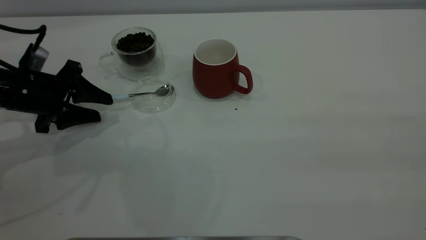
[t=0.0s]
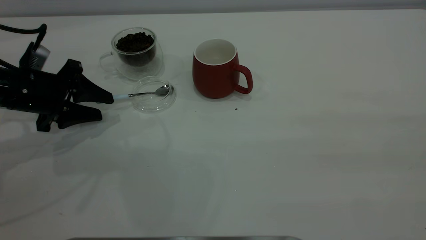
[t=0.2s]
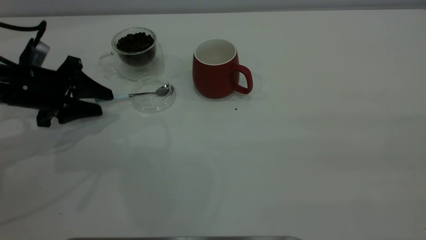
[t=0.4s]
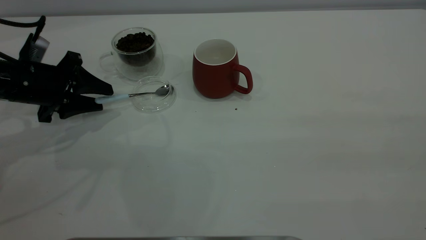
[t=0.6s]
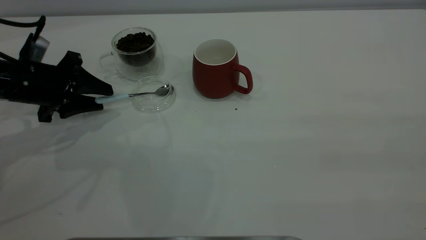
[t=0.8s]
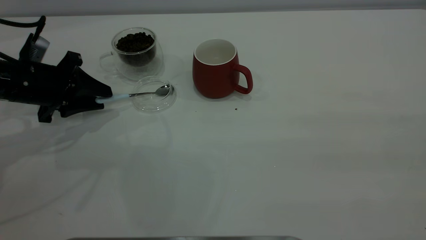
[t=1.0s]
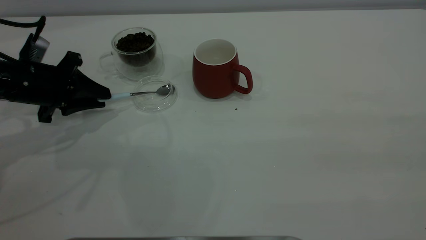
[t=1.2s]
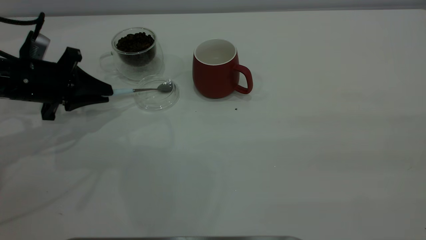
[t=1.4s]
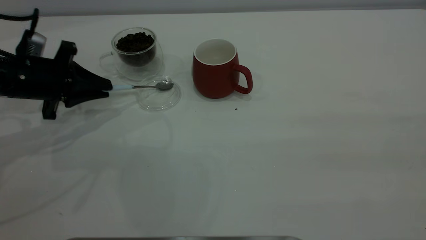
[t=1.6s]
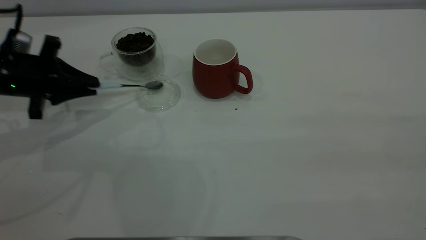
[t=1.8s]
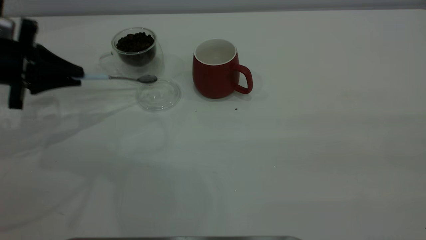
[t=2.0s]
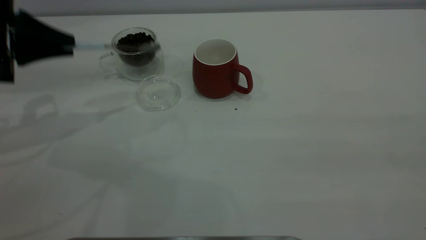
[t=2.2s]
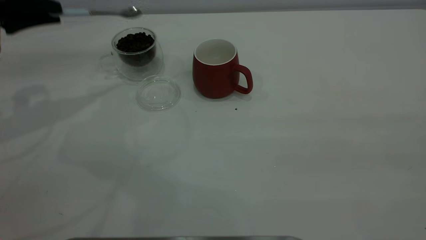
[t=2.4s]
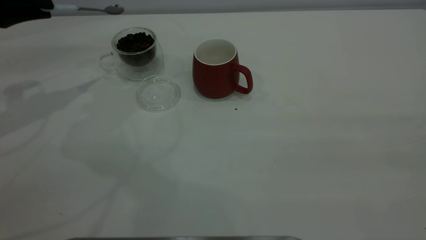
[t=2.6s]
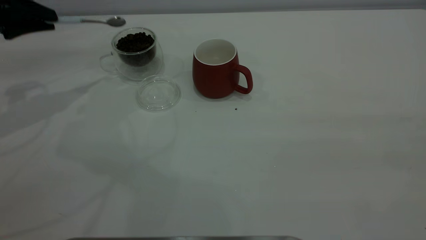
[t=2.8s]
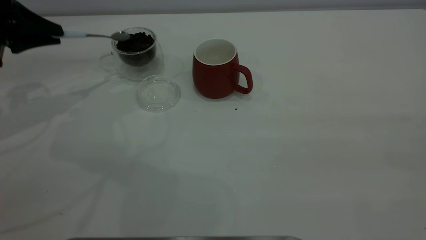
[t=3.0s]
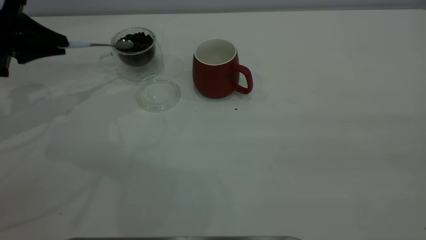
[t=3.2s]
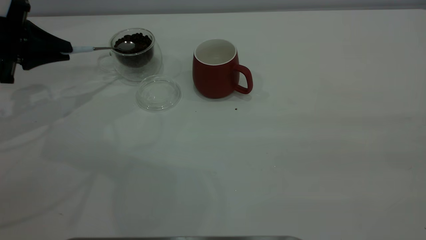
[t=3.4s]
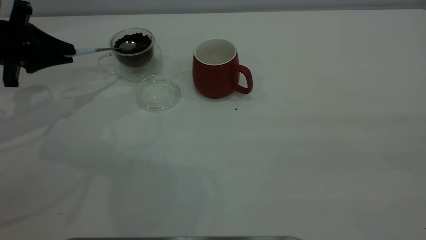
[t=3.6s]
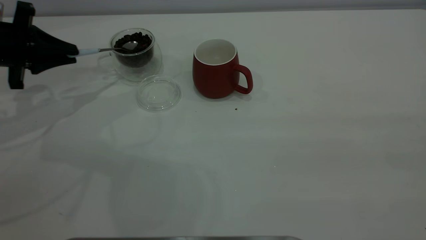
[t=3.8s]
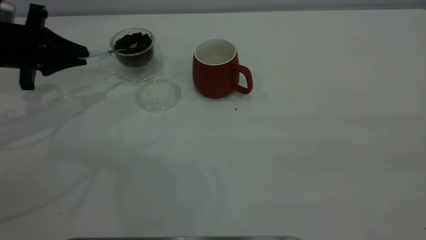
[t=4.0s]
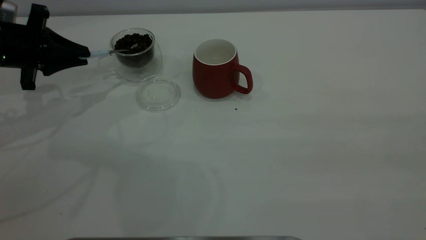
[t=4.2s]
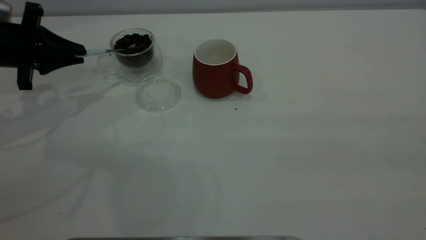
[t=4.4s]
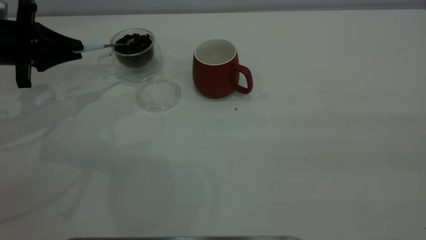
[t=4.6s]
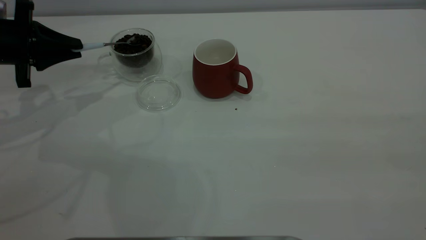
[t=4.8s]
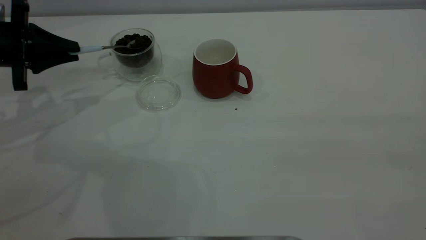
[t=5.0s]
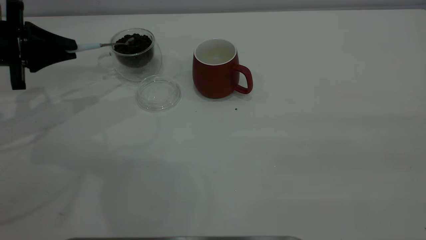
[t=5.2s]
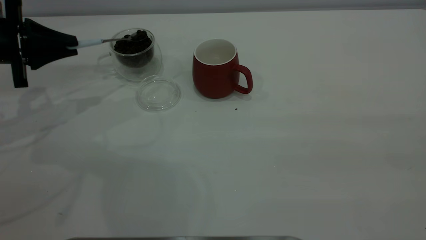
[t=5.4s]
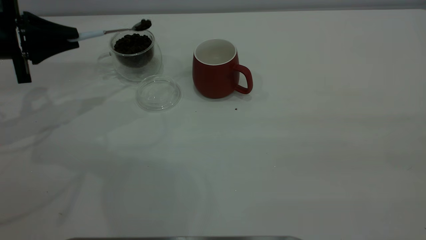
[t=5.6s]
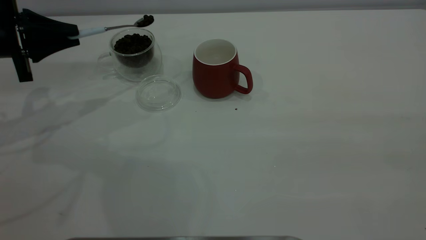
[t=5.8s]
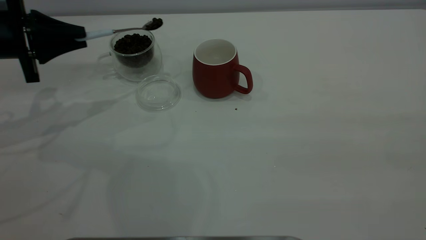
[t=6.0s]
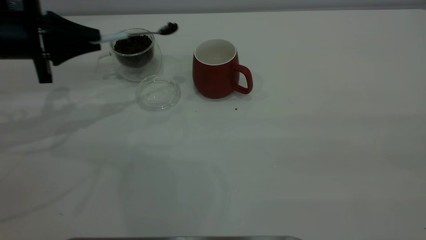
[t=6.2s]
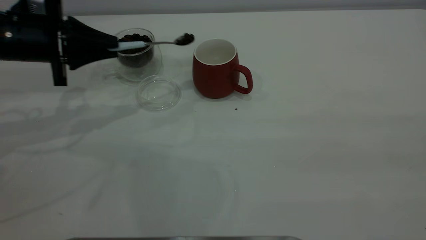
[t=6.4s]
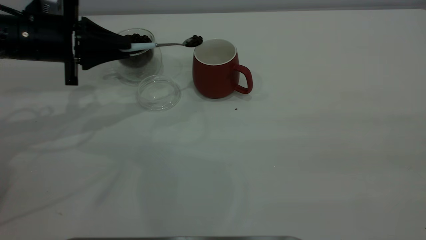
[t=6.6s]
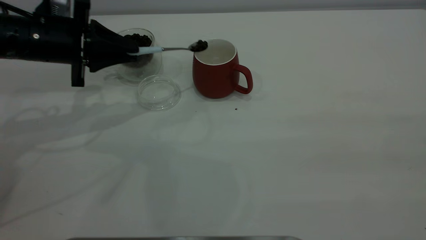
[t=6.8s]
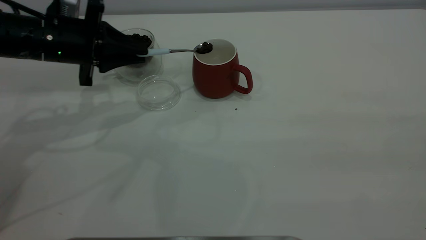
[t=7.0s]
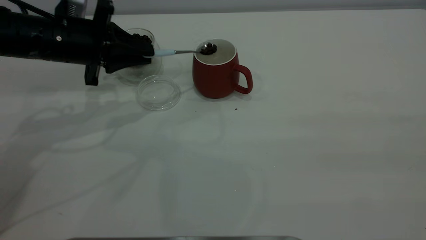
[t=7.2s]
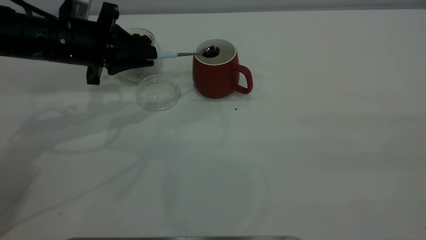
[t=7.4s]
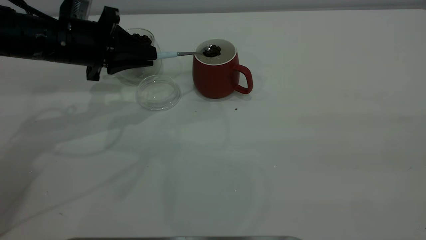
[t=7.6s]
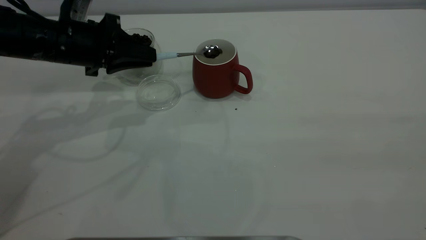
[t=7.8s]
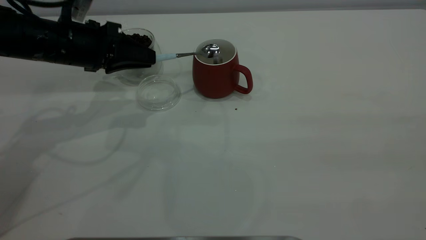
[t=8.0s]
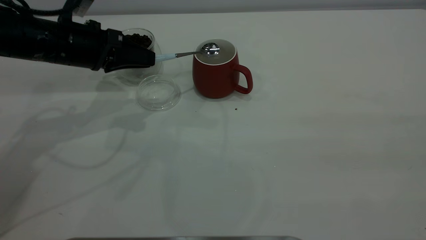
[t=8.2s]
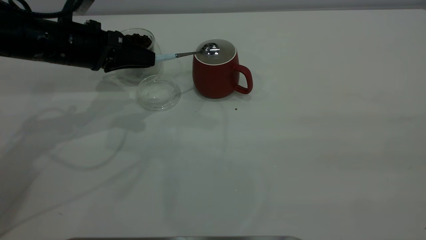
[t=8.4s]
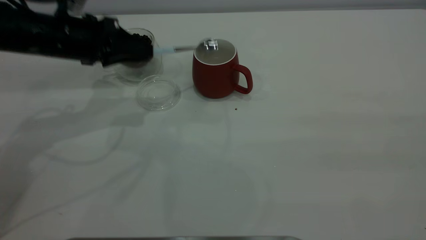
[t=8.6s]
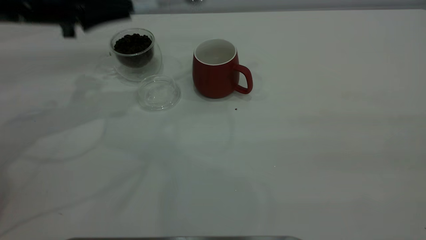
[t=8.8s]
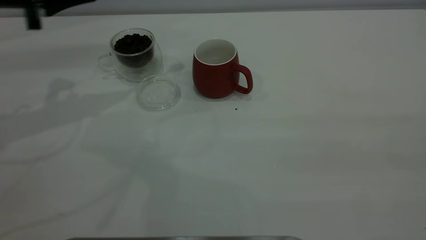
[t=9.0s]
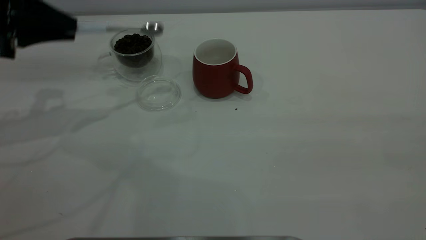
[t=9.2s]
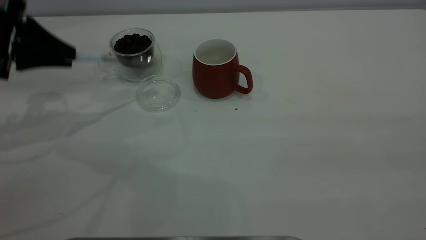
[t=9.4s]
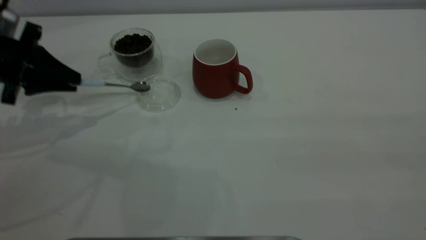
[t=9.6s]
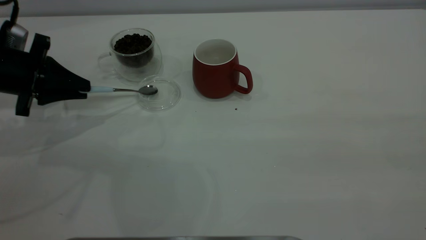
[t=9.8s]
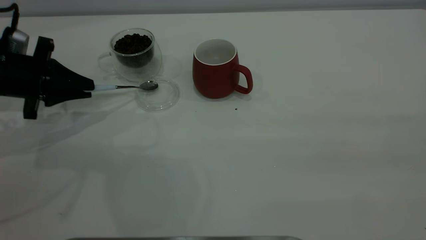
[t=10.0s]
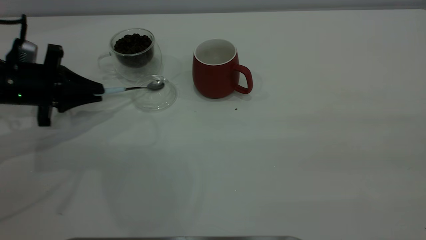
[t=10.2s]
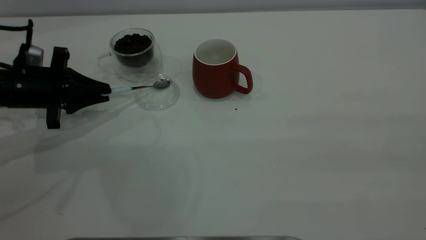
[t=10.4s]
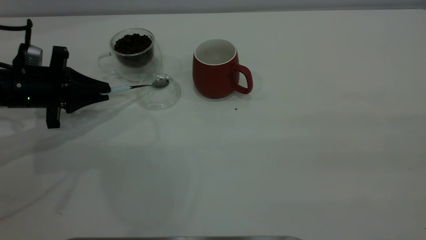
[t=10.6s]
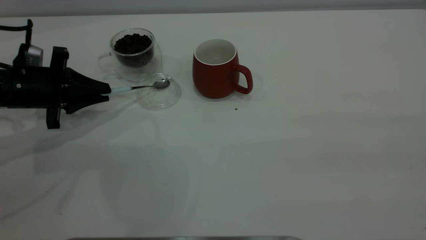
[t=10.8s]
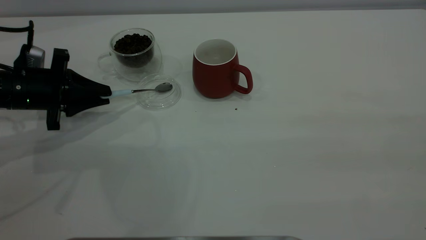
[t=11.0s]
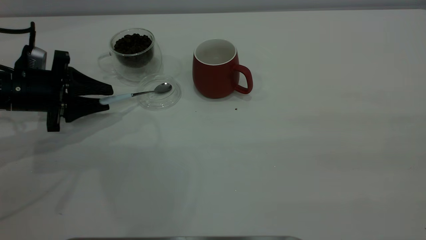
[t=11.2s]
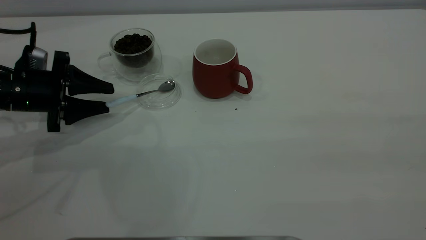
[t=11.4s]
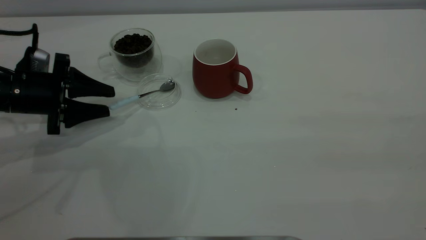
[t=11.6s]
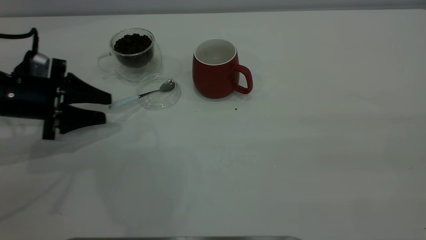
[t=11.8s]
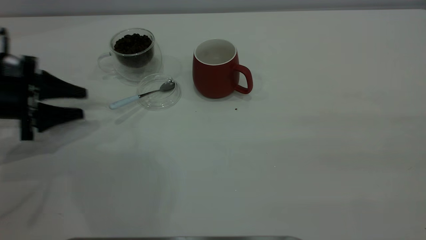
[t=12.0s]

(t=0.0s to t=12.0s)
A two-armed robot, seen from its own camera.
Task of the whole recording: the right gripper place the red cup in the center of the table, the left gripper take the blue spoon from the cup lid and scoop out the coffee beans from the coffee cup and put them into the red cup, the left gripper put the spoon back into the cup lid.
Step, t=0.0s - t=2.0s: Pick up the spoon.
Step, t=2.2s - t=8.6s: Scoop a spoonful of beans into the cup.
Step, t=8.8s - t=11.8s: Place the spoon back in its original place.
t=0.0s - t=1.6s: The left gripper closes up.
t=1.6s - t=3.0s: The left gripper goes approximately 10 cm upward and to the left.
t=3.0s - t=4.4s: The grippers make only small movements.
t=4.4s - t=6.0s: There are only small adjustments of the grippers.
t=6.0s - t=7.6s: The left gripper is displaced to the right by about 10 cm.
t=7.6s - t=9.0s: The left gripper shifts some 10 cm to the left and upward.
t=9.0s - t=10.4s: The left gripper travels downward by about 15 cm.
t=10.4s - t=12.0s: The left gripper shifts by approximately 5 cm, and opens.

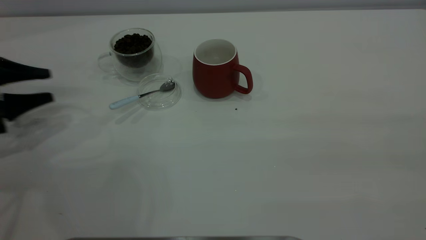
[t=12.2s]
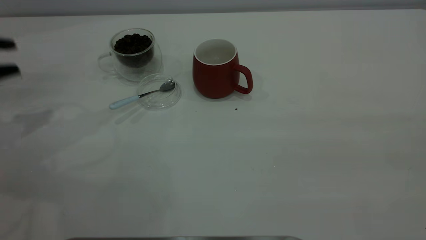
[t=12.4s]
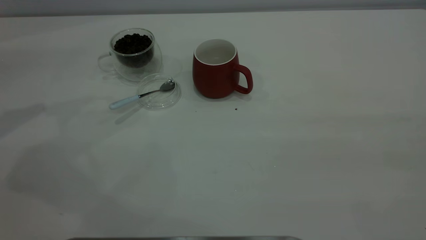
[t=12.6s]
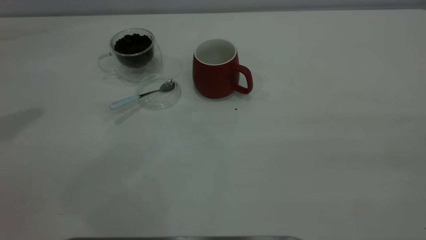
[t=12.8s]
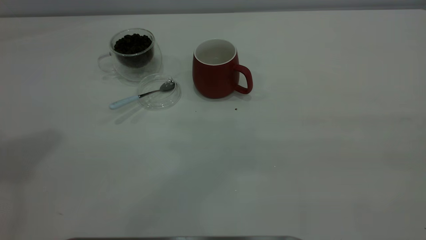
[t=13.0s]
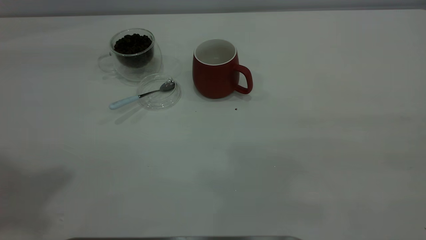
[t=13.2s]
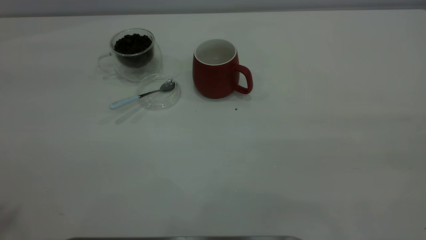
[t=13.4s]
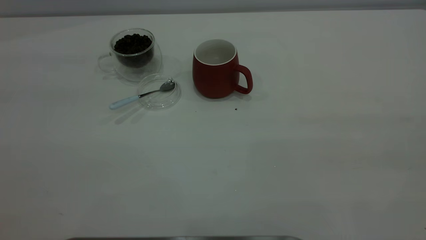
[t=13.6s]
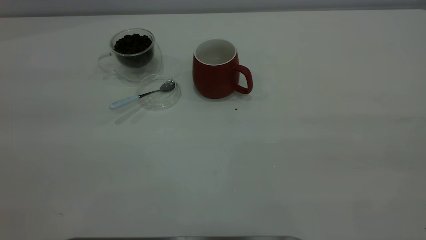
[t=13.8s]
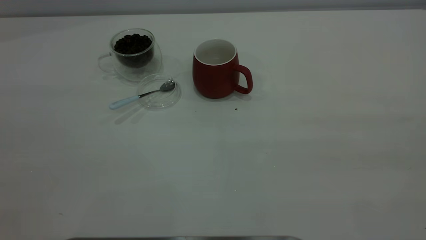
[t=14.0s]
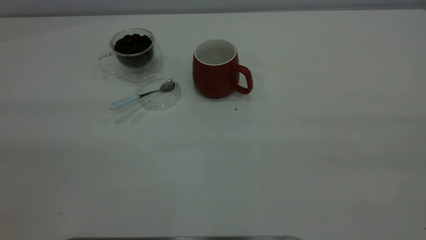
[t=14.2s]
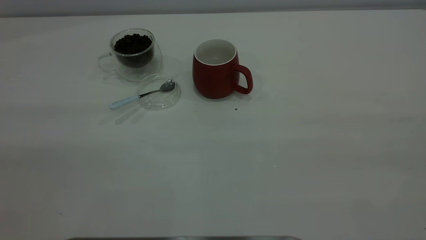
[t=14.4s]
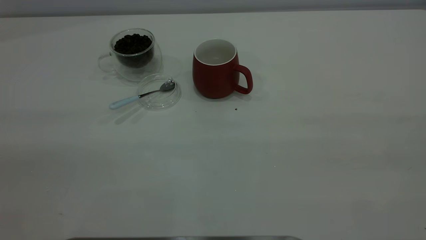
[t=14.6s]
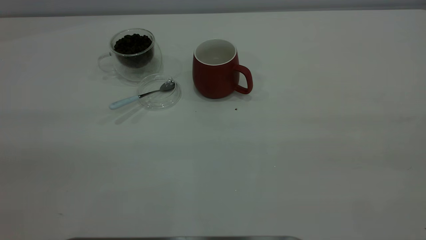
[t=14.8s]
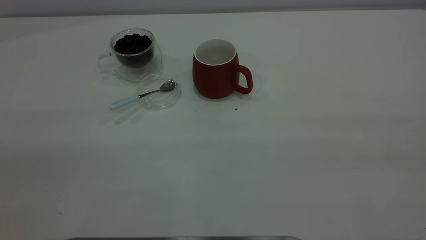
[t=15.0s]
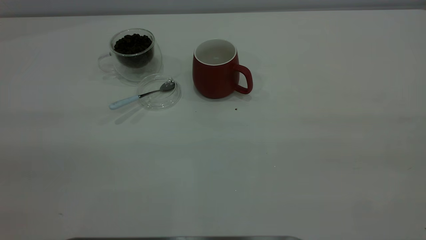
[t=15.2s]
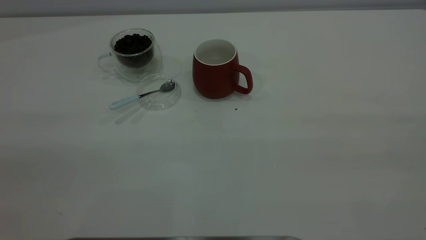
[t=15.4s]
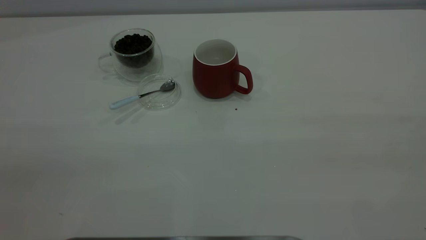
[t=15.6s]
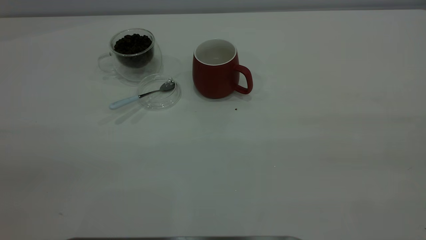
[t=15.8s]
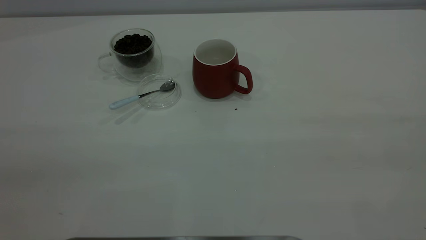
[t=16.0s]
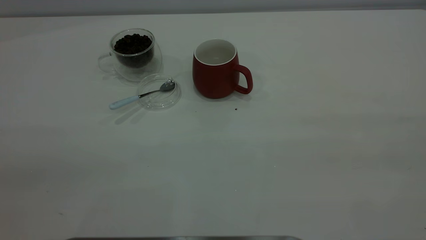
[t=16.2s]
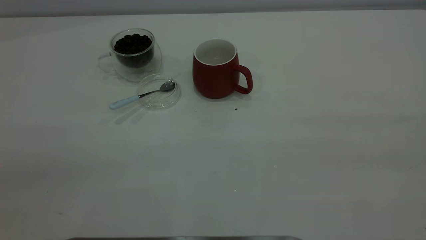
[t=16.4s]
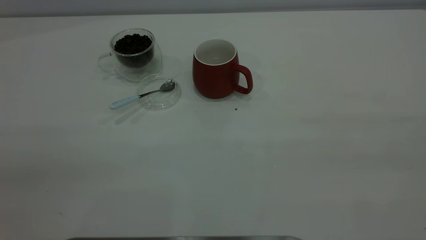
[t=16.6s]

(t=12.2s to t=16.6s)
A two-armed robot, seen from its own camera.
Task of the whole recording: the right gripper place the red cup in the center of the table, the left gripper take the blue spoon from the cup lid and scoop out the coffee beans from the coffee cup and put them into the red cup, the left gripper put the spoon back into the cup lid.
t=12.2s - t=13.6s: The left gripper goes some 40 cm upward and backward, and closes.
